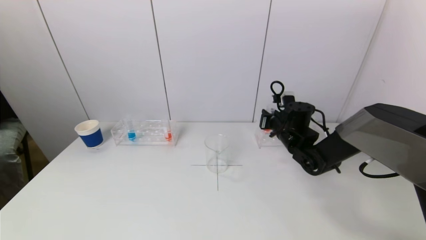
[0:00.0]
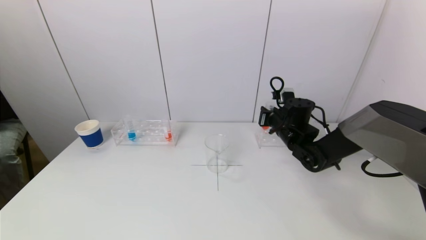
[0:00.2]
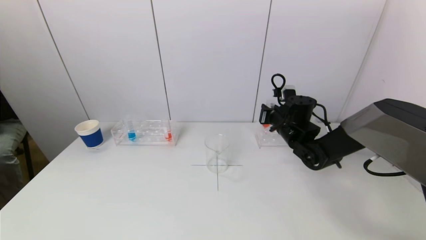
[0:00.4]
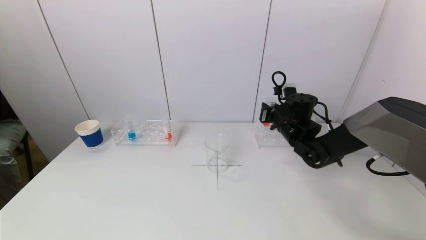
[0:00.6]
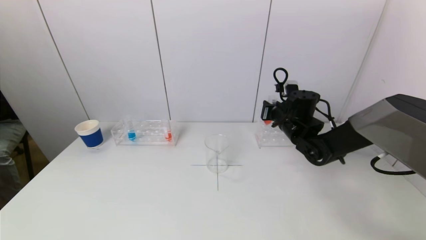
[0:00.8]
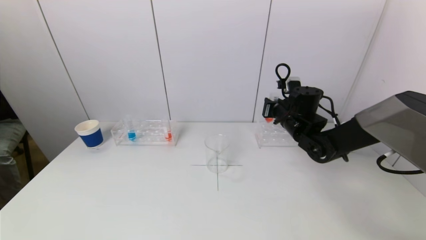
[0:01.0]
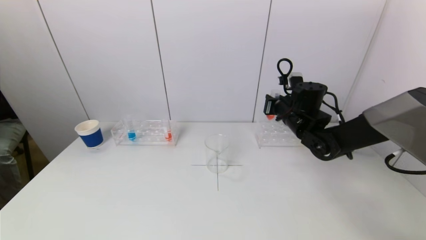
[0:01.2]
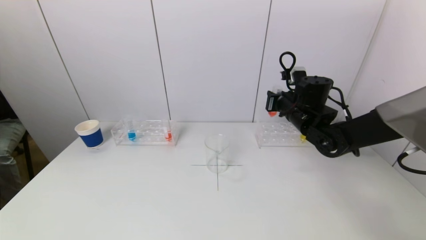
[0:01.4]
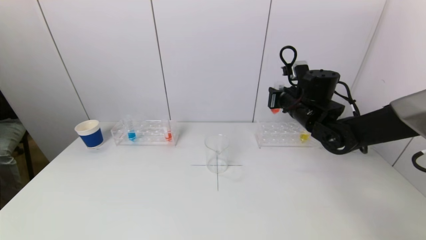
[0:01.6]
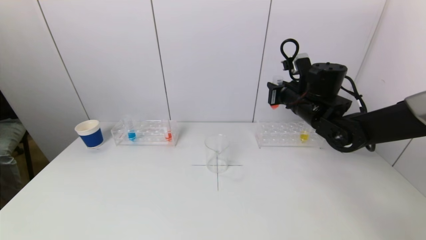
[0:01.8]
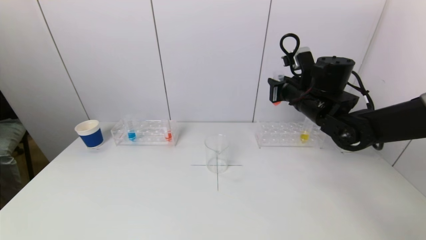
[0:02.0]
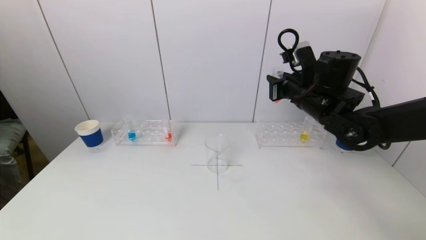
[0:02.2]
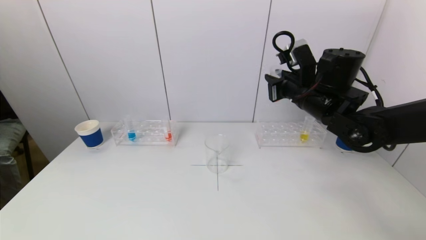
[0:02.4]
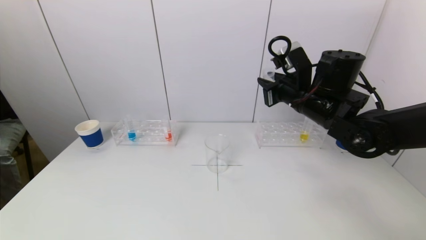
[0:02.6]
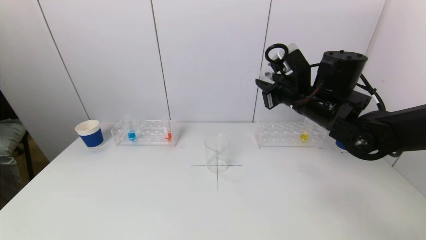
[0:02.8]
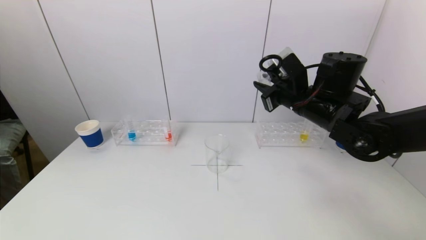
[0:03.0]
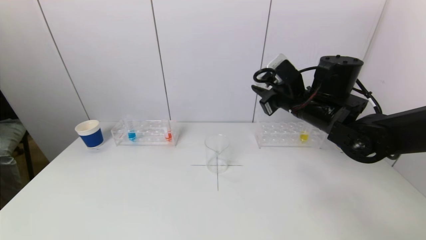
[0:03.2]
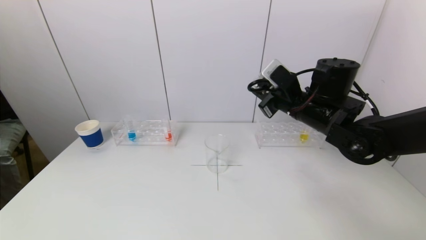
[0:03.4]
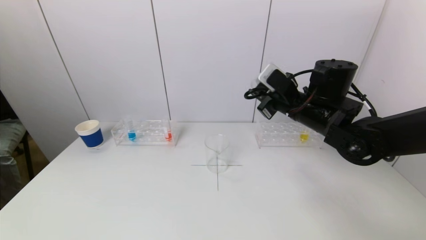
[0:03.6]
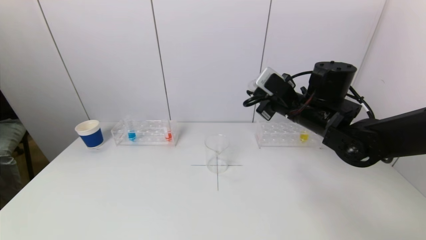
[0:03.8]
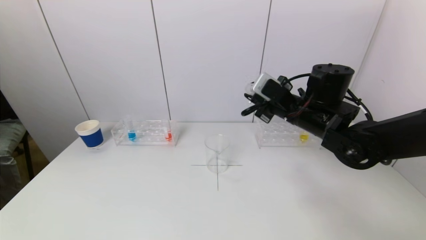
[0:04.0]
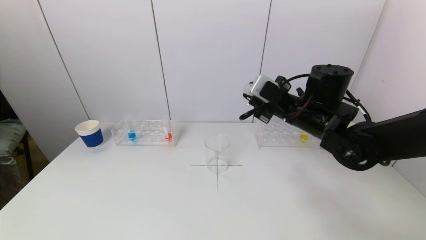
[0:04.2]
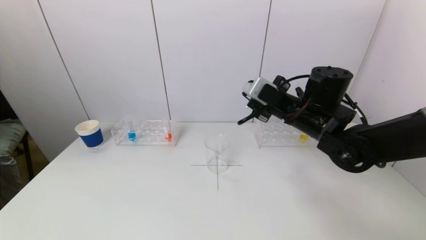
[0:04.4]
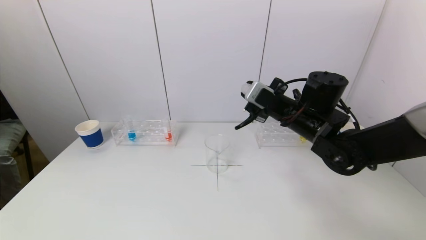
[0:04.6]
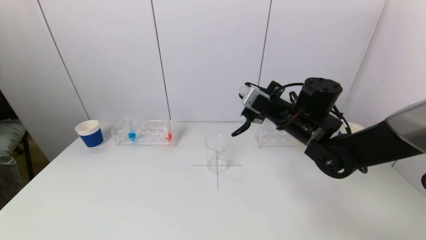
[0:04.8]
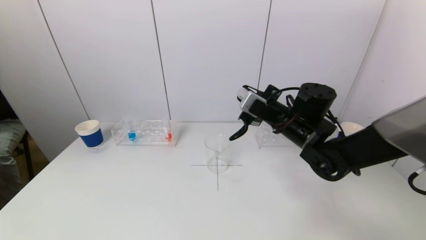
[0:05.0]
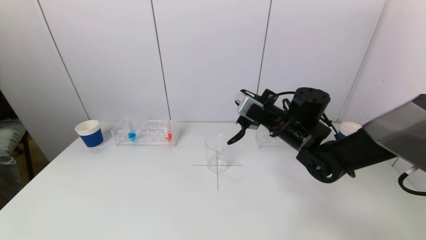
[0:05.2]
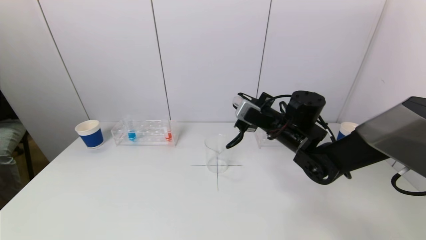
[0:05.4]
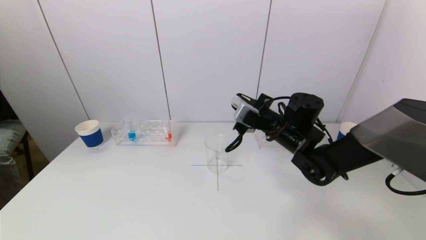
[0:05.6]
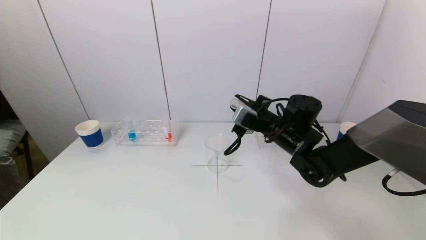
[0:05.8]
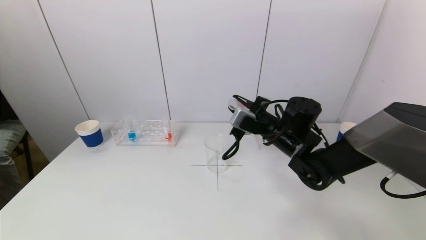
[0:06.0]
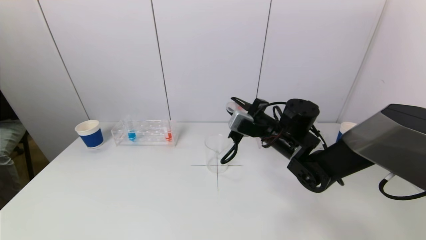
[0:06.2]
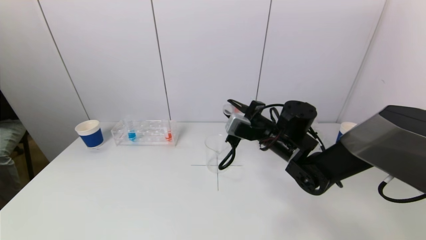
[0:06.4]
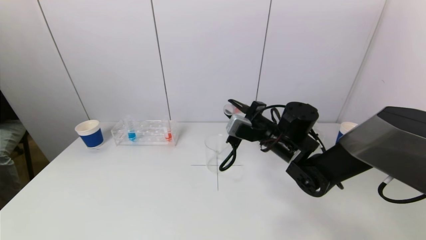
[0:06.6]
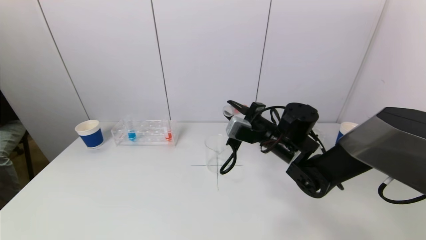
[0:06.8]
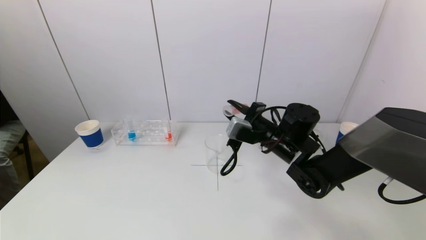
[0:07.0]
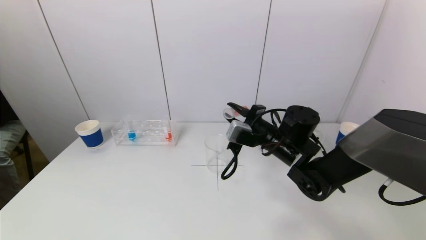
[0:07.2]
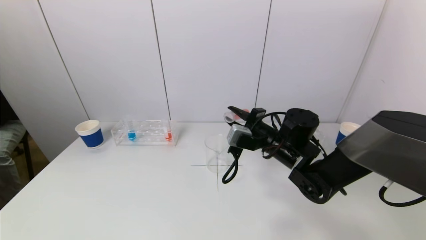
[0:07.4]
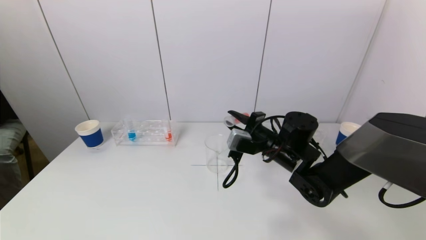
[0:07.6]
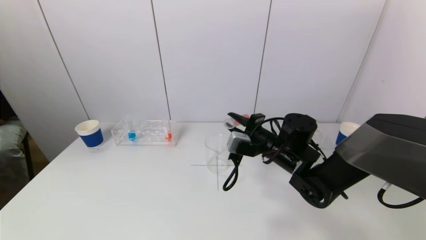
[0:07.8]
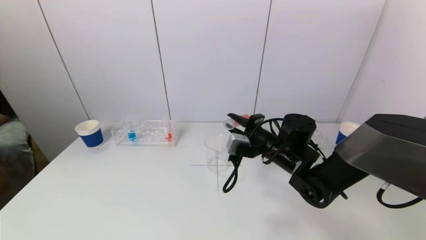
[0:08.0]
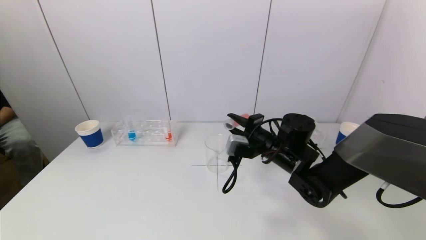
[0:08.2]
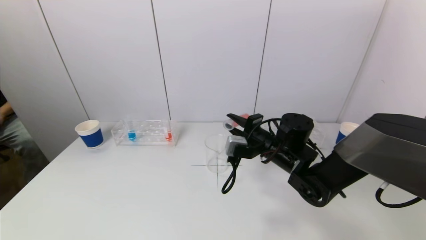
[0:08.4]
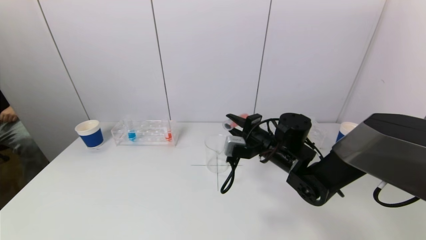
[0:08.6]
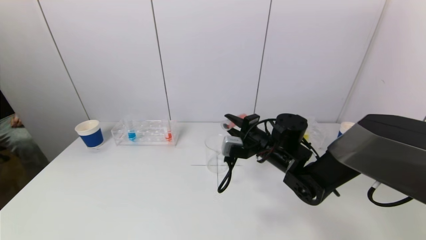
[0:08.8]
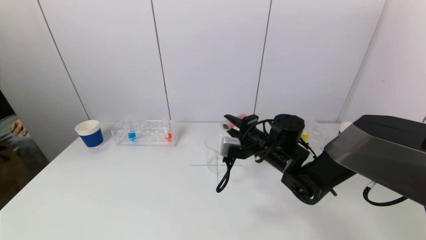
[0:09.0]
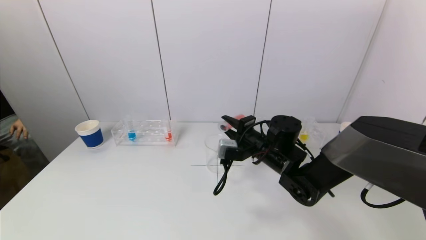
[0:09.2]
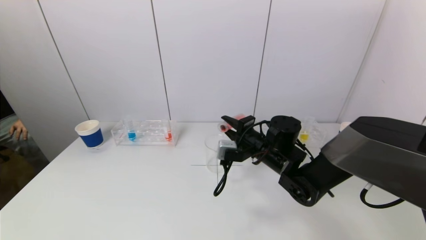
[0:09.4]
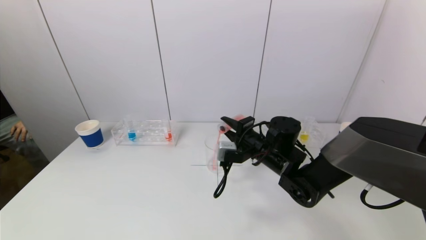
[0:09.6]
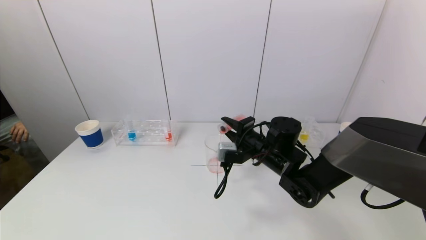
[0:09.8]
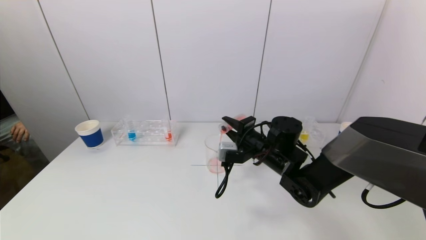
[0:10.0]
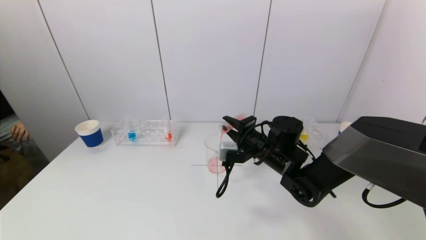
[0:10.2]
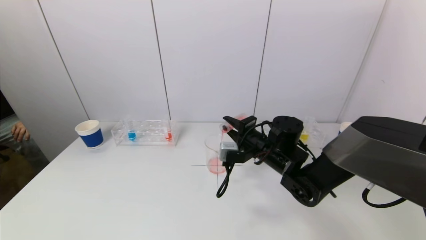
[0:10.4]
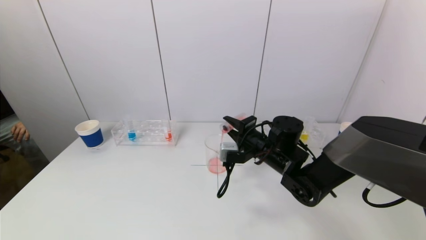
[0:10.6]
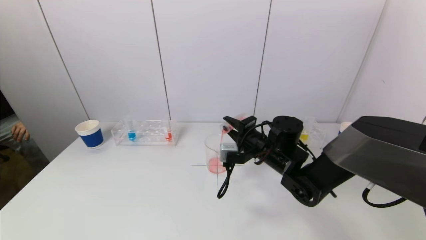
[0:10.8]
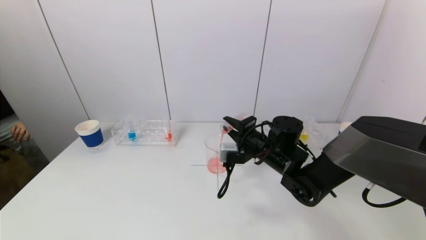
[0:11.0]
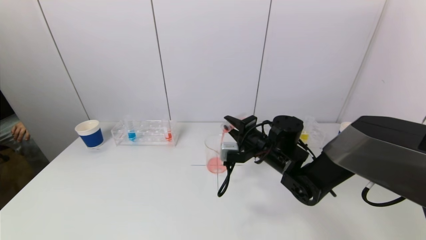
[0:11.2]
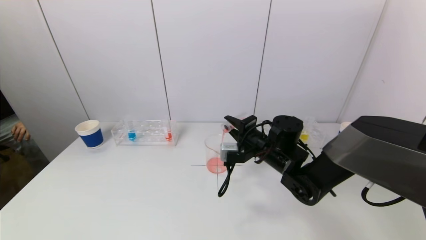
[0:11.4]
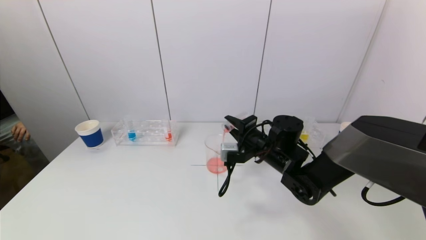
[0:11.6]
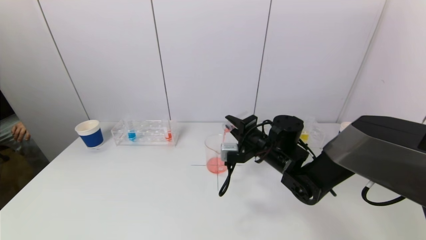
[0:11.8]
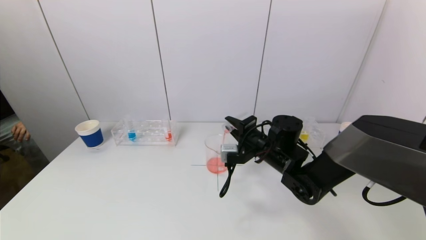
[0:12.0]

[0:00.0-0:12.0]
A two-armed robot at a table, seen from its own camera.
Task of the whole recording: pick up a test tube with pigment on left test tube rack and a test tube with pigment on right test tube rack by grippers and pour them into the beaker.
0:00.0 to 0:01.6: The right gripper travels upward by roughly 10 cm.
0:01.6 to 0:03.0: The right gripper goes approximately 5 cm backward.
0:04.4 to 0:06.0: The right gripper moves downward, about 5 cm.
0:06.0 to 0:09.0: The grippers make only small movements.
0:09.0 to 0:12.0: The grippers stay close to where they were, moving slightly.

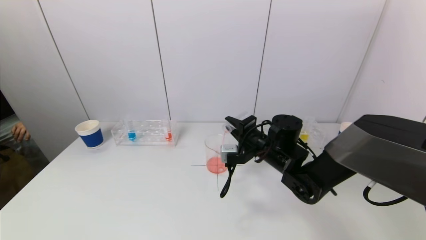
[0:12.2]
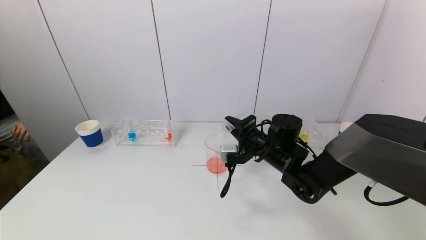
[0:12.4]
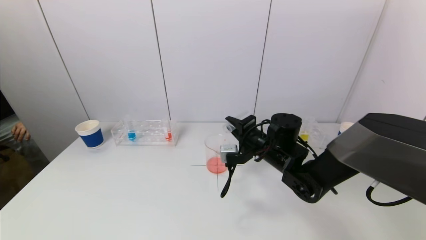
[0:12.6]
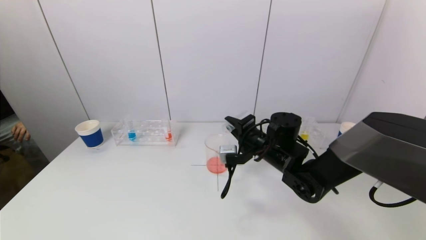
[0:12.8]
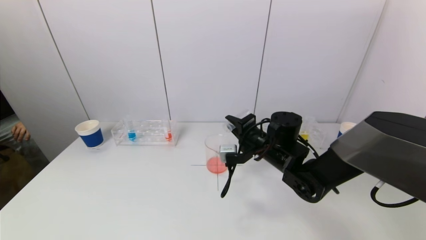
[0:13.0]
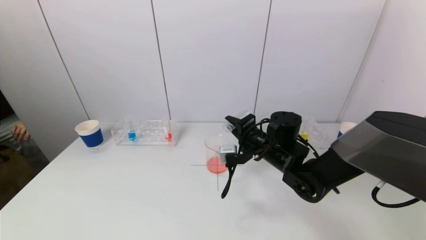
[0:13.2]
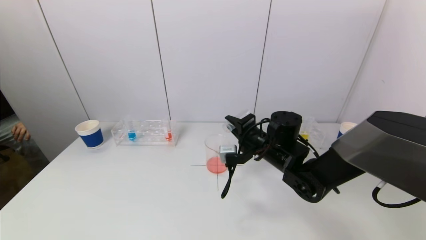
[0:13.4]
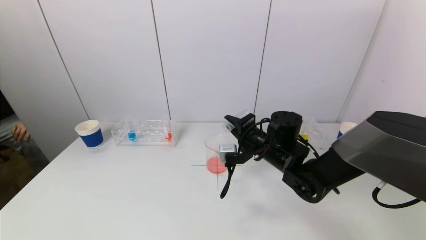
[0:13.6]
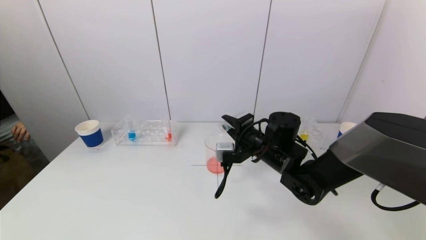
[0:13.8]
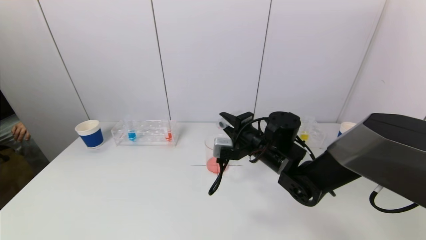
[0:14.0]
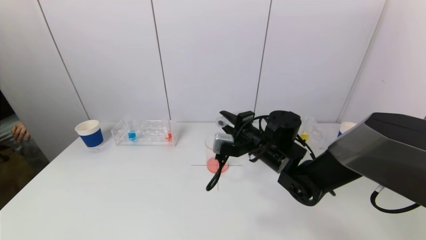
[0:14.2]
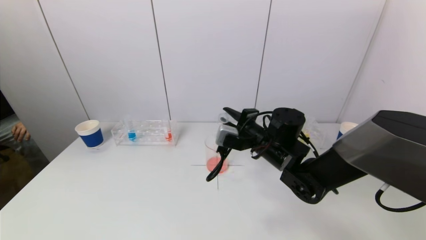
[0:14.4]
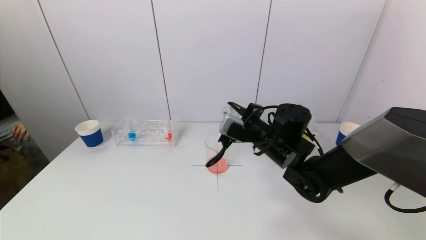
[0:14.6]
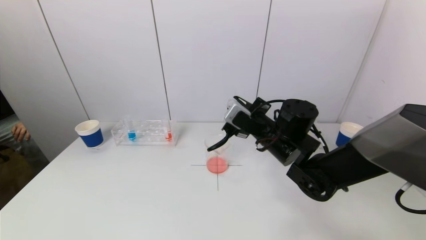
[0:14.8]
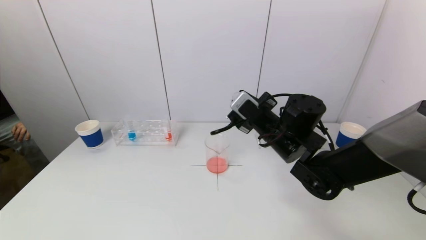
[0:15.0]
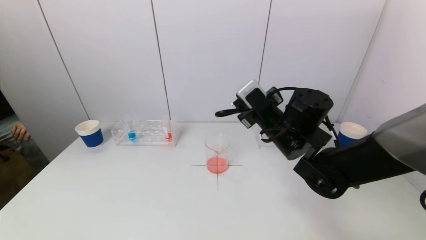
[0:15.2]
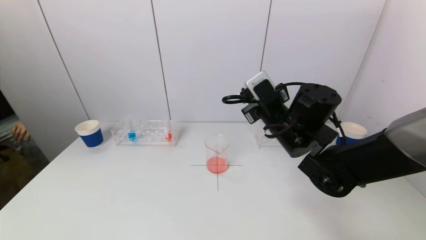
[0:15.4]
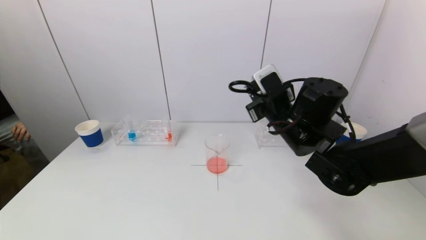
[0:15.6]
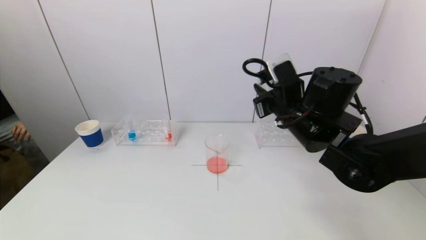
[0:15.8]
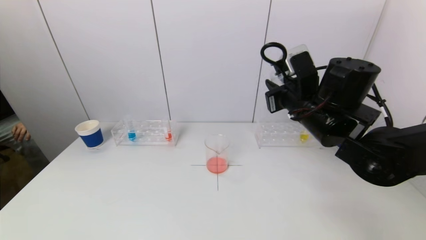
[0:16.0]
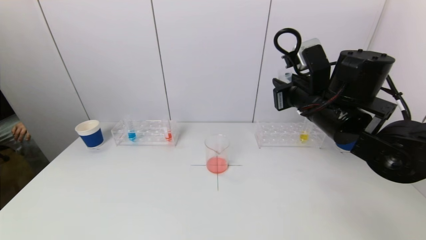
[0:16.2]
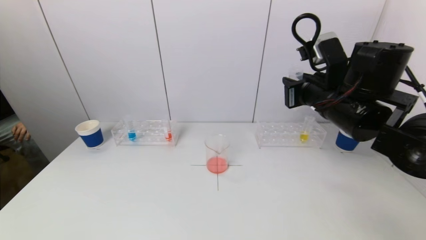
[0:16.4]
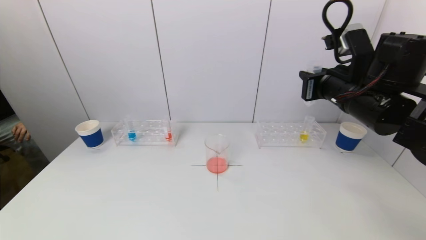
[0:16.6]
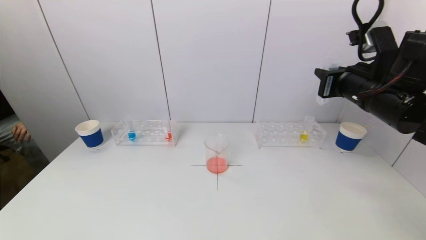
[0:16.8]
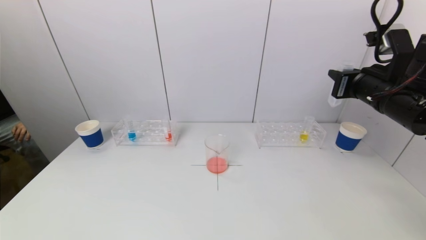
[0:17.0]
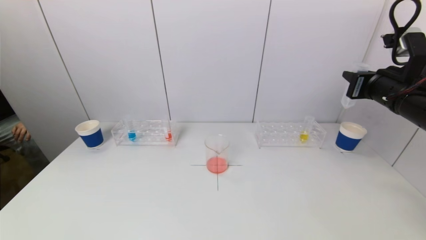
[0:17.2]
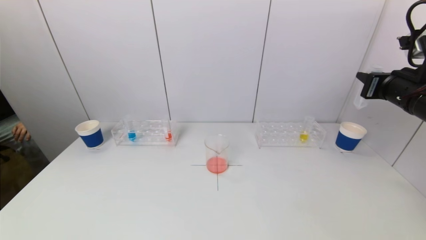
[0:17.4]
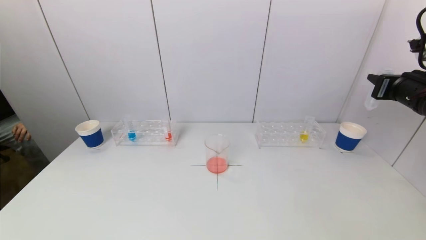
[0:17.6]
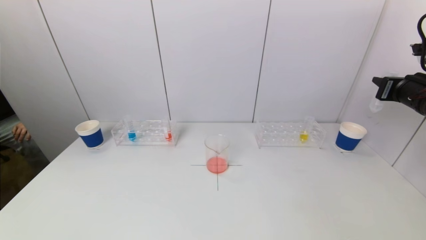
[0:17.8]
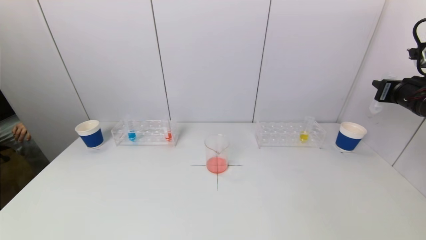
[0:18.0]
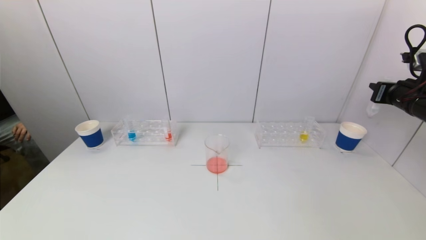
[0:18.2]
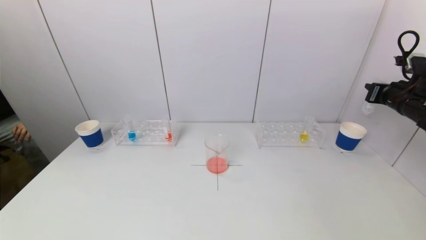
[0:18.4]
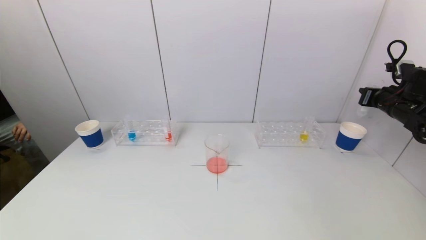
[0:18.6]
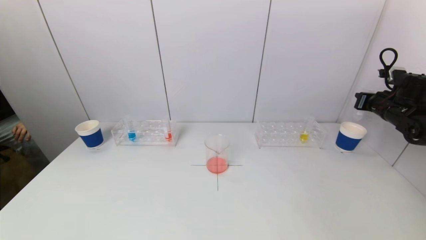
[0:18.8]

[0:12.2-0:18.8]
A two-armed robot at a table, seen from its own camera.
Task of the whole recording: pick up a test tube with pigment on left test tube rack and a test tube with pigment on right test tube rack by grippers and pour them into the beaker.
0:12.2 to 0:13.8: The grippers make only small movements.
0:13.8 to 0:15.4: The right gripper heads upward, covering roughly 10 cm.
0:15.4 to 0:17.2: The right gripper moves to the right and upward, roughly 20 cm.
0:17.2 to 0:18.8: The right gripper goes roughly 20 cm to the right, forward and downward.
